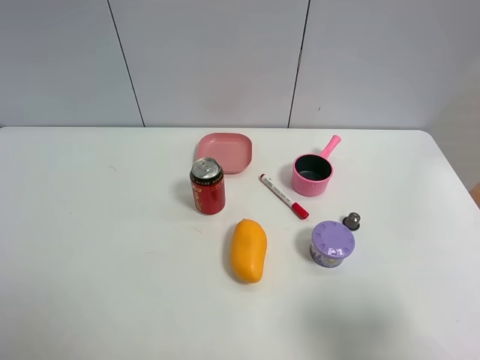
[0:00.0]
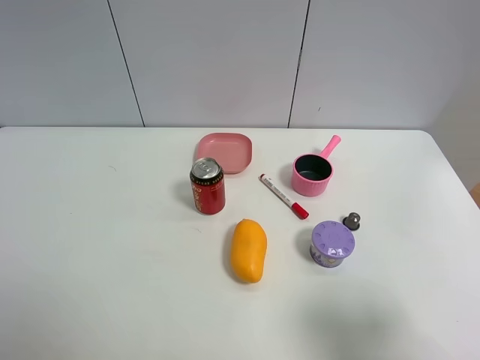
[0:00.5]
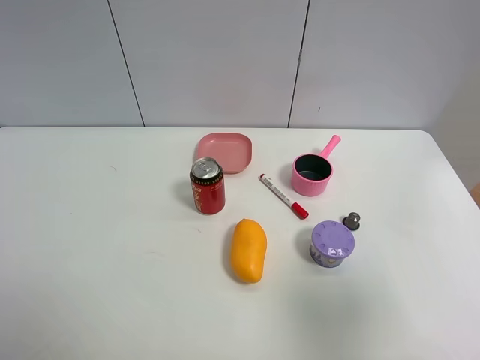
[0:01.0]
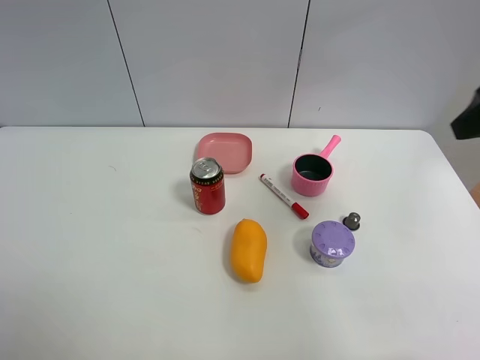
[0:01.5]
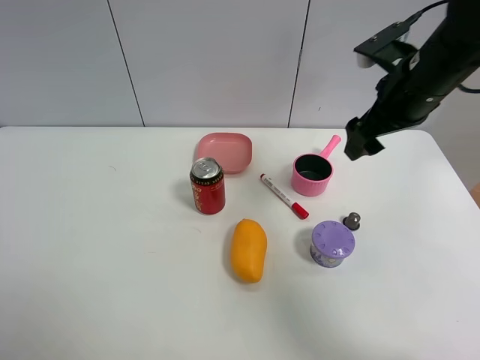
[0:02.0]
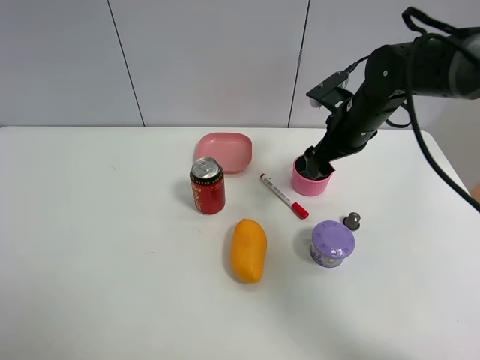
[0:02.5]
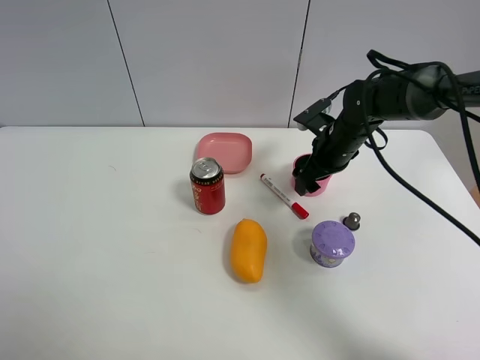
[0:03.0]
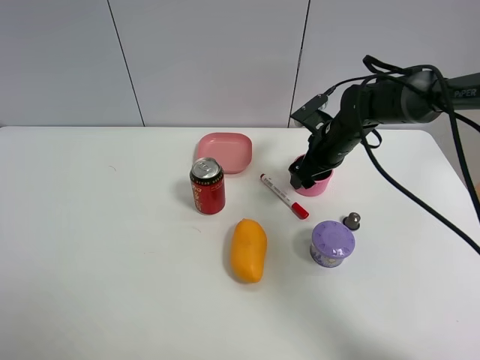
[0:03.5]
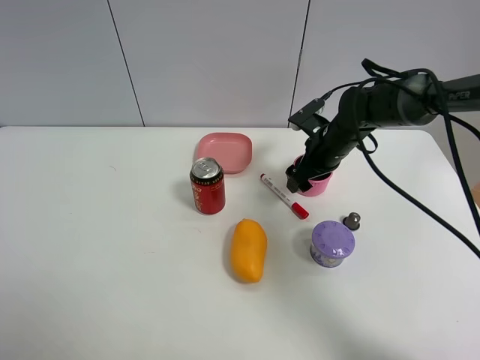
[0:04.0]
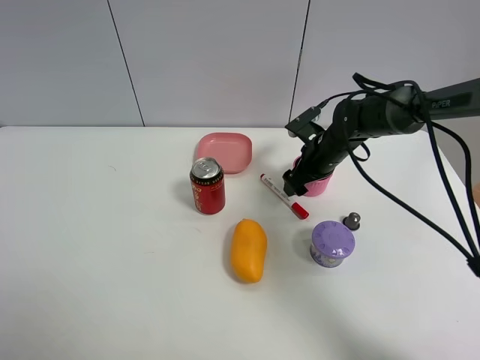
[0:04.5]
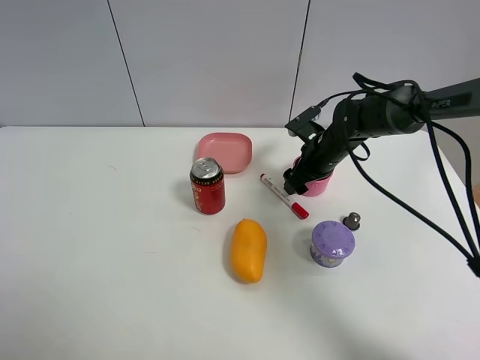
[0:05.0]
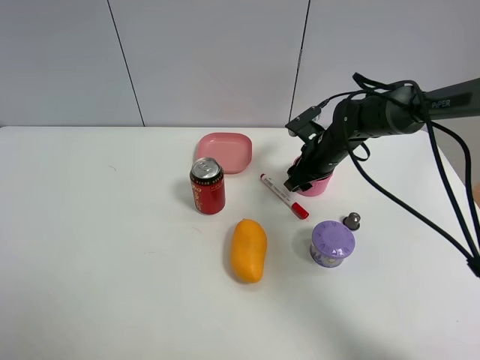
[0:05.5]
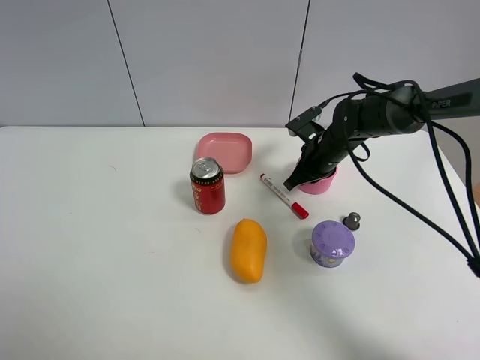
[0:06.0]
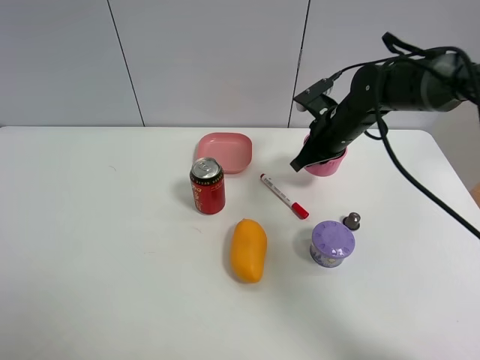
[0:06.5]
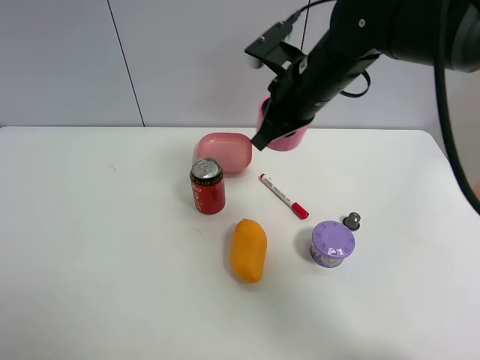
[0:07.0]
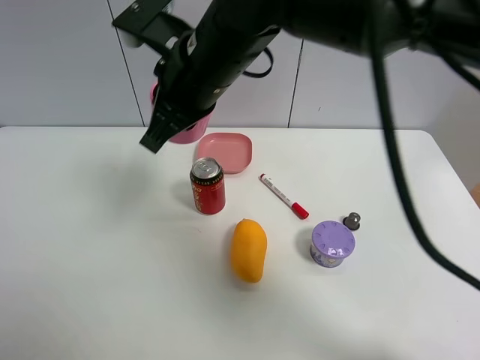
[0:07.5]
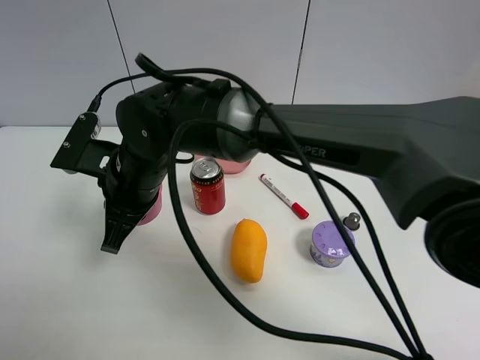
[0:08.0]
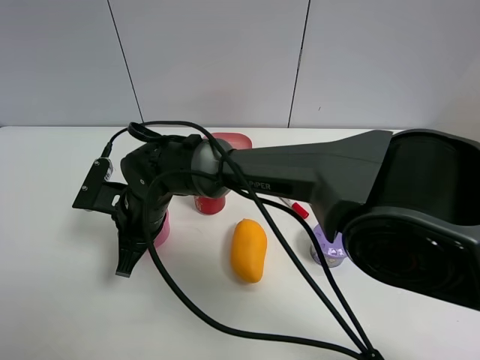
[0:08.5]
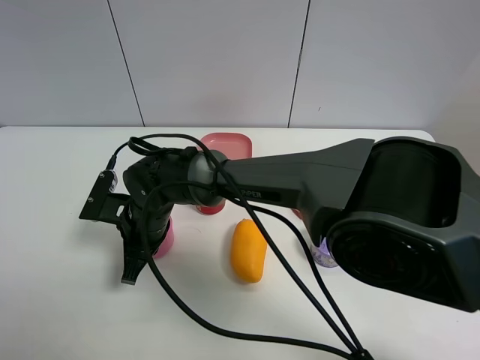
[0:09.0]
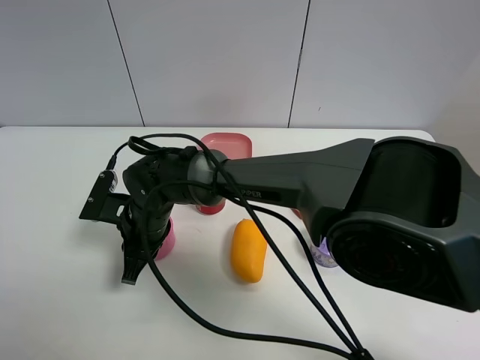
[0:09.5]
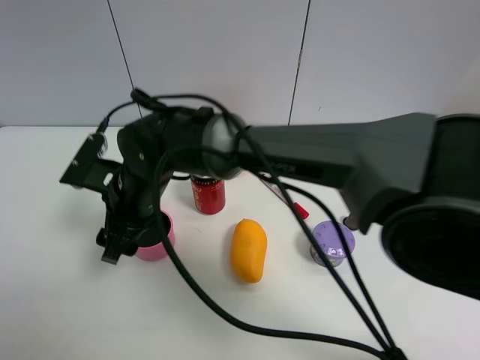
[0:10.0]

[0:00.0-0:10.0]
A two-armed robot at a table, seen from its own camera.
Task of the whole recording: the gripper move the object.
Step, 0:00.0 to 0:06.0: Grasp the pink pot with the right gripper.
0:00.0 to 0:02.0: The right gripper heads forward, covering some 30 cm.
0:02.0 to 0:04.0: The right gripper moves downward and forward, roughly 15 cm.
0:04.0 to 0:06.0: The right gripper closes up.
0:06.0 to 0:08.0: The right gripper shifts roughly 30 cm to the left and backward.
0:08.0 to 0:10.0: The right gripper reaches about 10 cm downward, then returns, and opens its fingers.

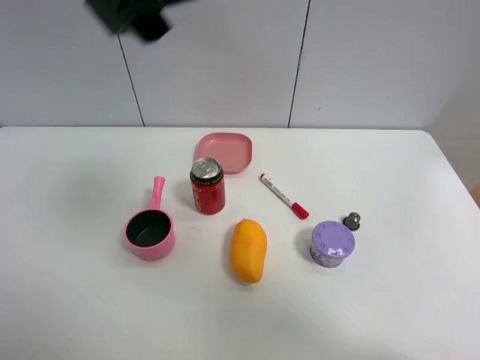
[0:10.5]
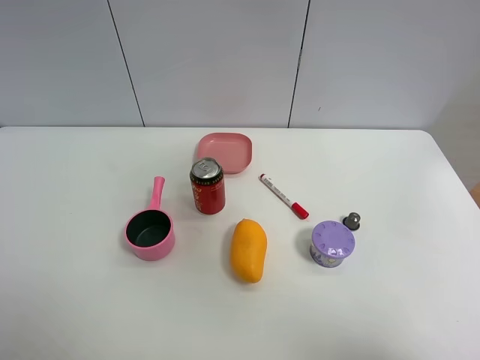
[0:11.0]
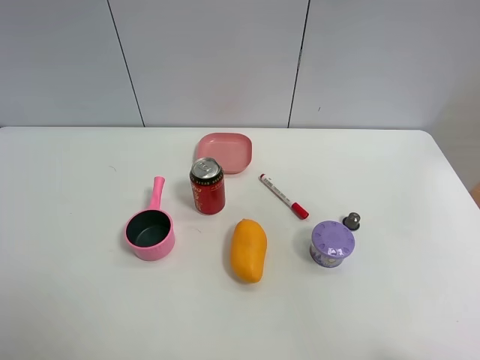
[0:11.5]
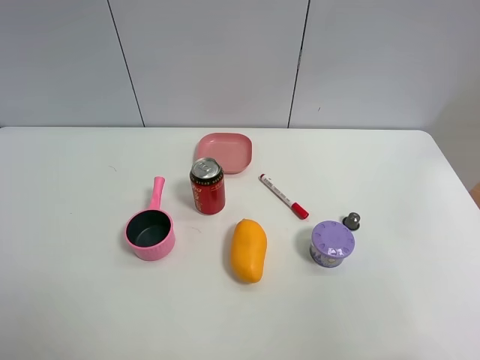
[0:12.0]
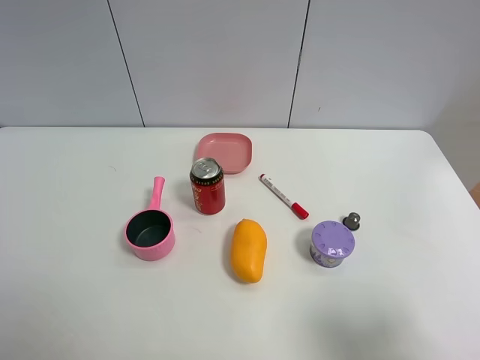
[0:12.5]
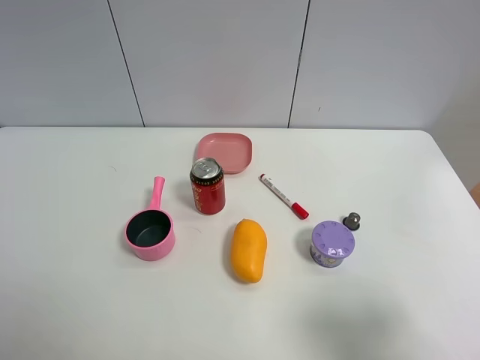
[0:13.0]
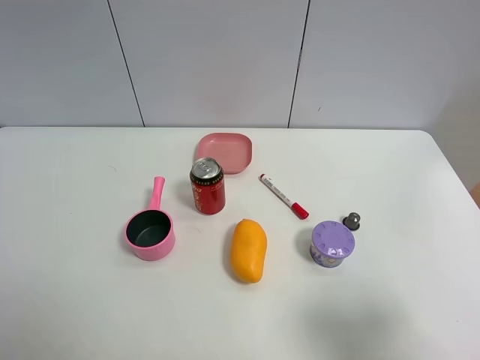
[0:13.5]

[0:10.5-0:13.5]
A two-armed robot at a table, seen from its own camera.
Task of the whole recording: the gripper move the object.
0:10.5 to 0:12.0: The right gripper heads to the right and backward, covering approximately 40 cm.
0:12.0 to 0:13.5: The right gripper moves downward, some 20 cm.

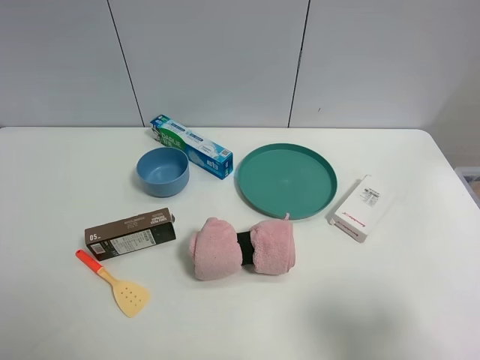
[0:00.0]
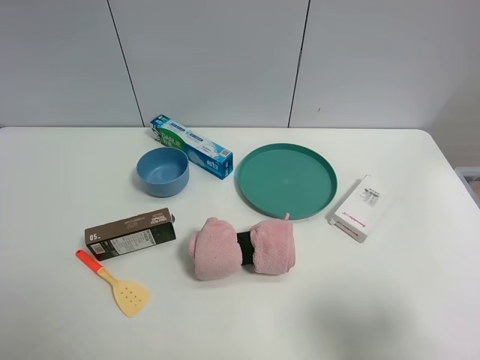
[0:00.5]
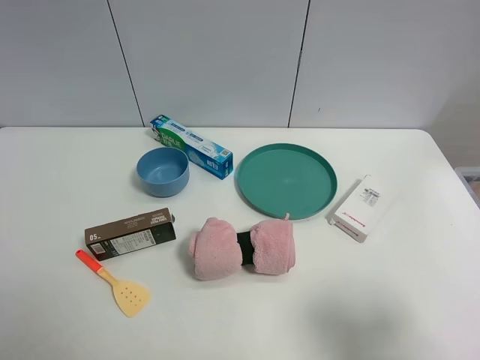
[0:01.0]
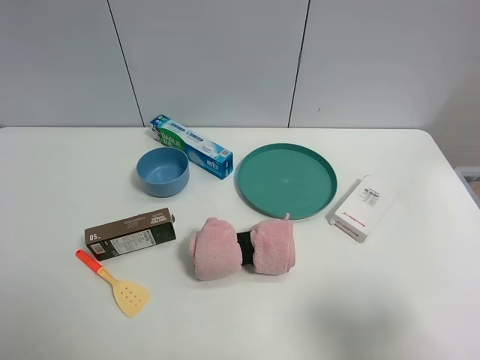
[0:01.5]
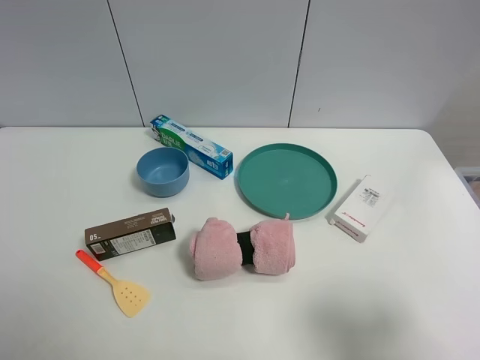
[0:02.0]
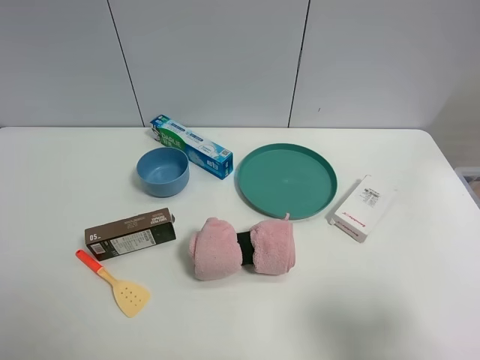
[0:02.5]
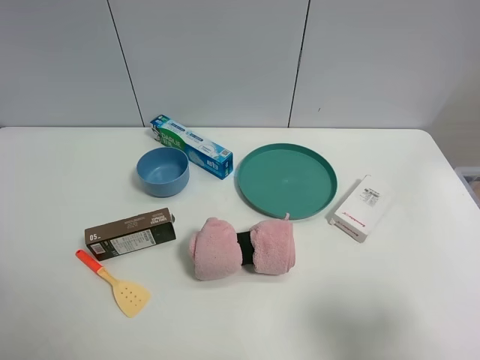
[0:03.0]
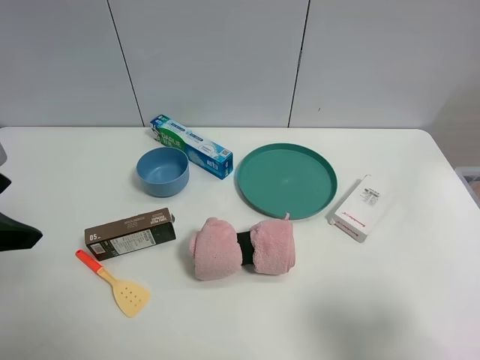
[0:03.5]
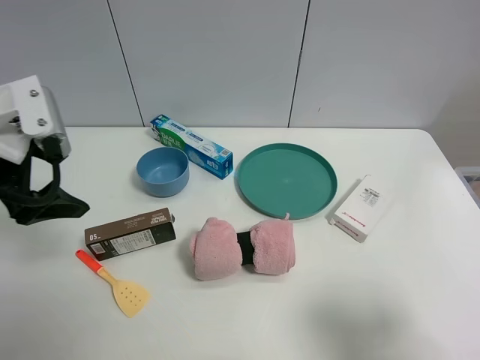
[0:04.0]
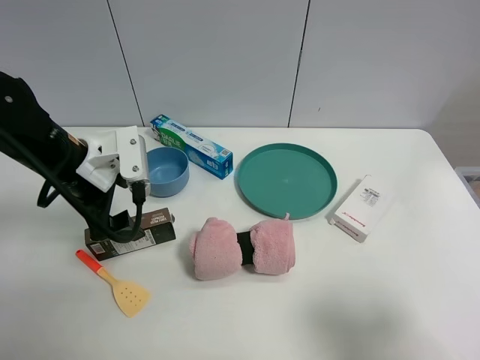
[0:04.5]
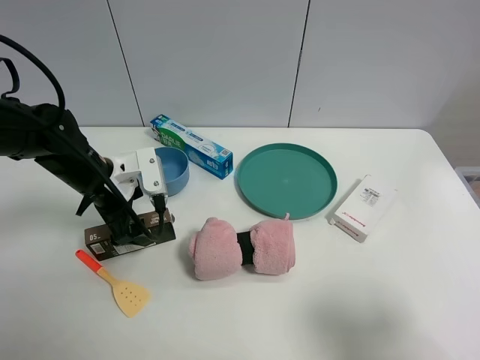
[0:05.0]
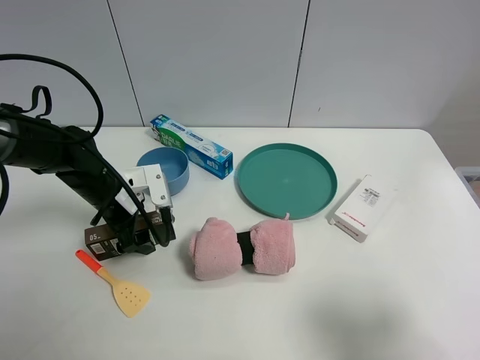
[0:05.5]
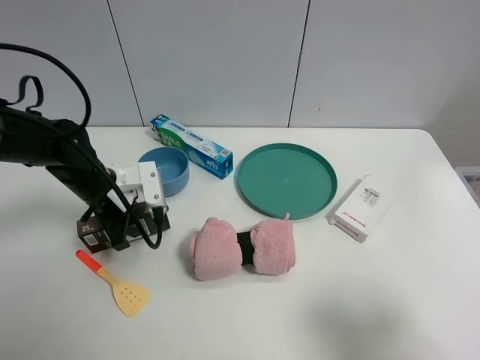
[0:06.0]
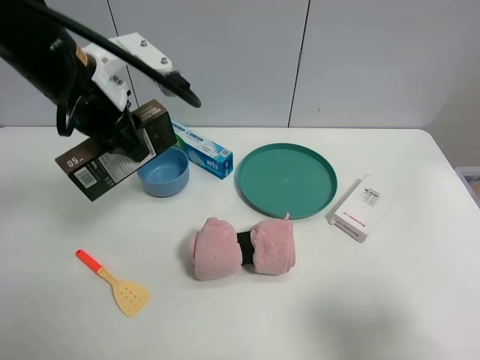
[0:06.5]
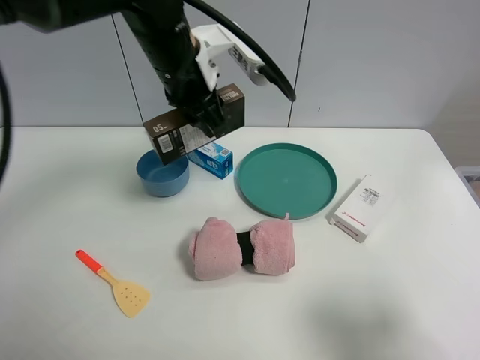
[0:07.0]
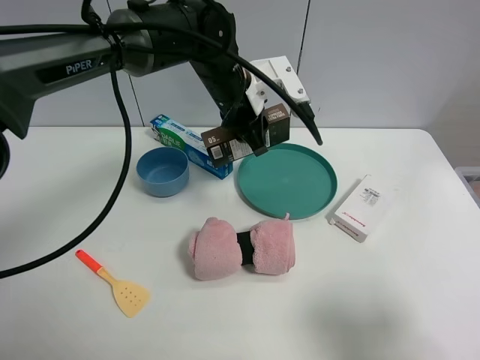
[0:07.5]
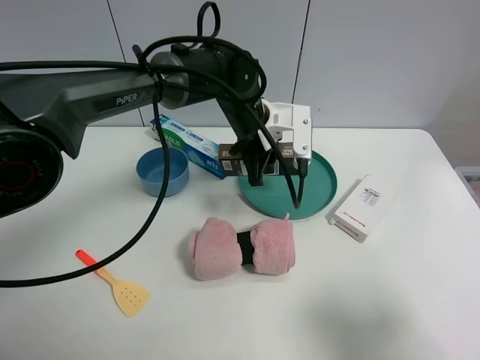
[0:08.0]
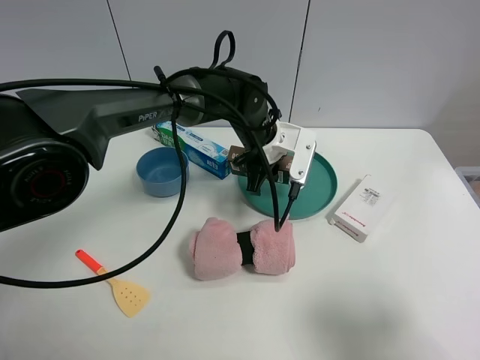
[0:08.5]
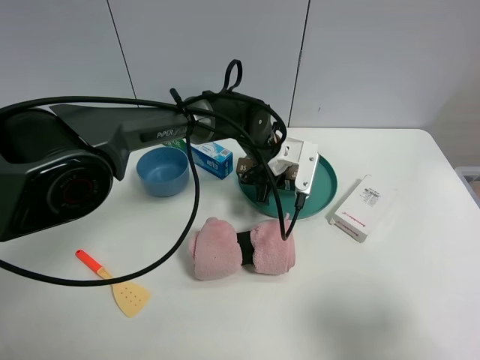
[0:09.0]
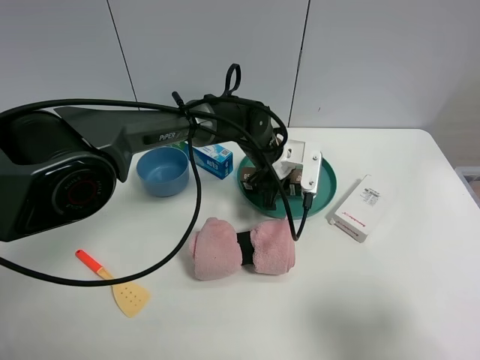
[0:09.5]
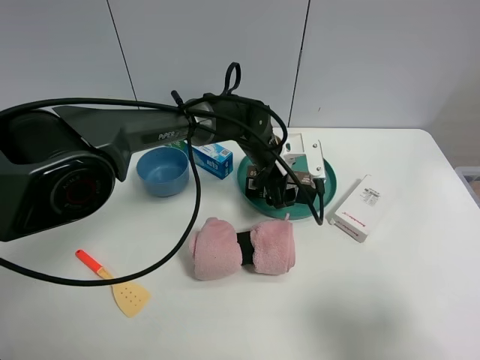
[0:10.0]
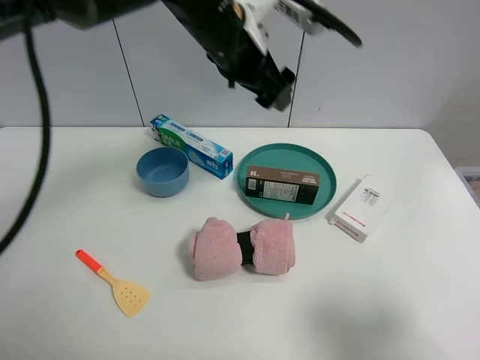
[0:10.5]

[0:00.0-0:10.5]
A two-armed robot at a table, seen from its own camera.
Task of the whole recording: the gripper move the object.
Step, 0:00.0 to 0:05.5: Grasp the Luckin Coffee box with the left gripper.
Step, 0:06.0 to 0:09.5: Place the Luckin Coffee box on the table with the left gripper.
0:00.0 to 0:02.0: Both grippers stay put.
0:02.0 to 0:04.0: The left gripper is displaced forward by approximately 25 cm.
0:04.0 to 0:06.5: The left gripper travels to the right and forward by roughly 10 cm, moves some 15 cm downward and comes back, and closes its fingers.
0:06.5 to 0:08.5: The left gripper moves to the right, downward and forward, some 25 cm.
0:08.5 to 0:10.5: The left gripper moves upward, approximately 20 cm, and opens its fingers.

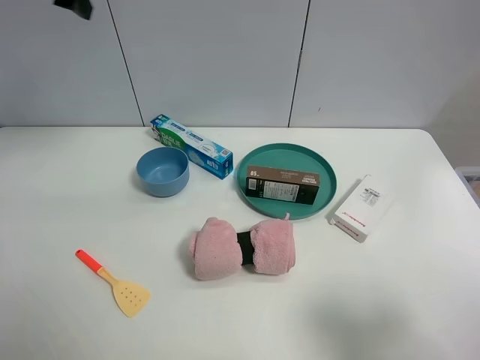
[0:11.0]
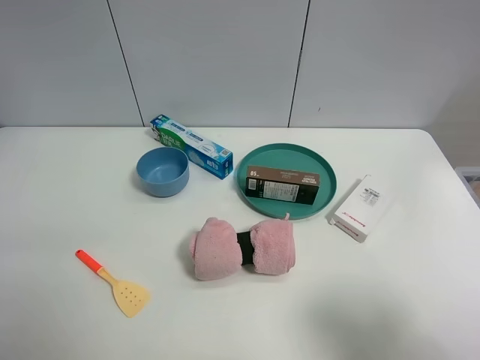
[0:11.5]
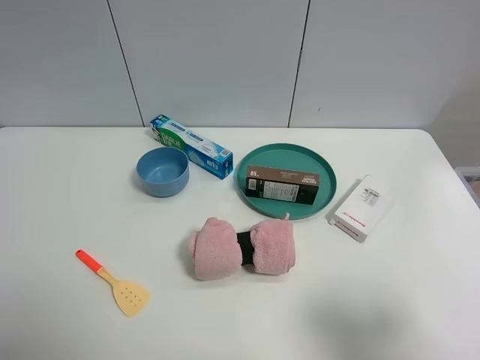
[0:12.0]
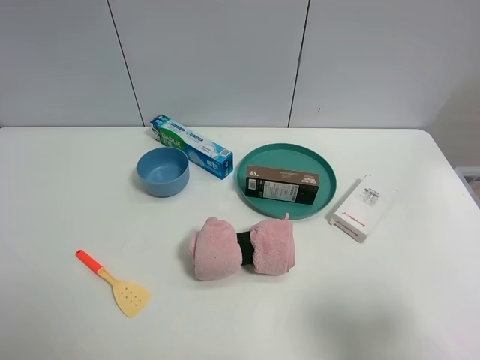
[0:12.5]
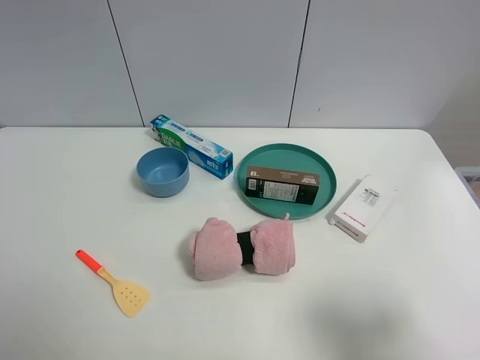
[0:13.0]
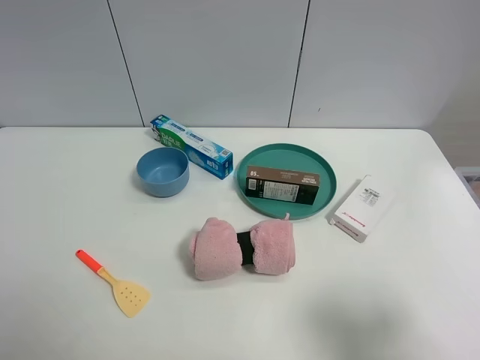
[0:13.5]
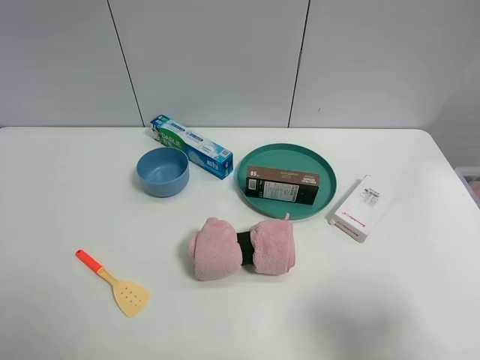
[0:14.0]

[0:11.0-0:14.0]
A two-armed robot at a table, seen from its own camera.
Task of the whole recording: the gripper move the object.
0:11.0 to 0:12.5: The left gripper is displaced backward by approximately 40 cm.
